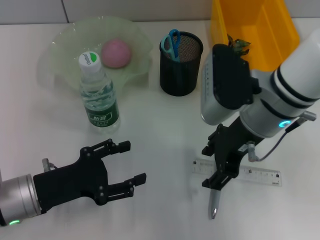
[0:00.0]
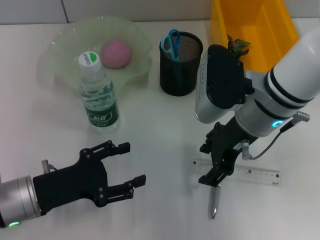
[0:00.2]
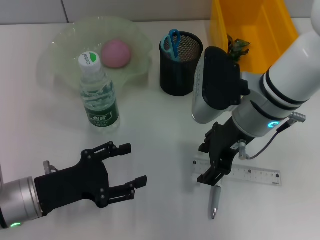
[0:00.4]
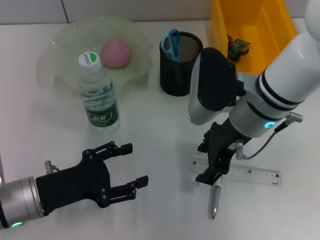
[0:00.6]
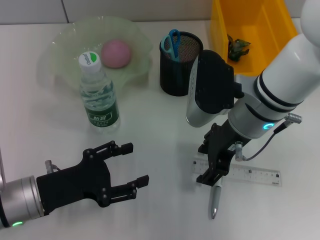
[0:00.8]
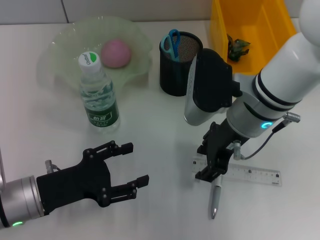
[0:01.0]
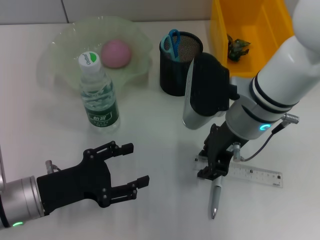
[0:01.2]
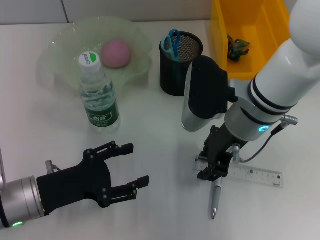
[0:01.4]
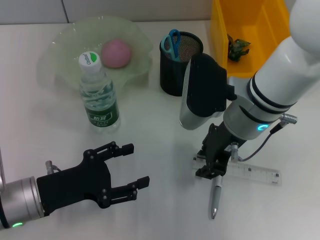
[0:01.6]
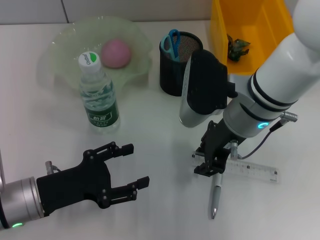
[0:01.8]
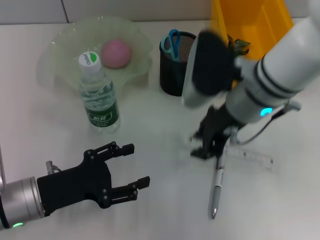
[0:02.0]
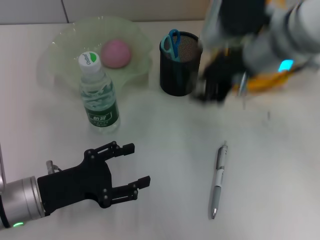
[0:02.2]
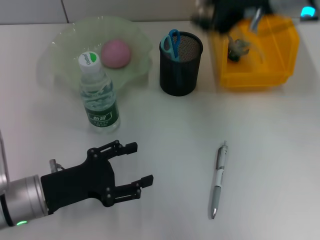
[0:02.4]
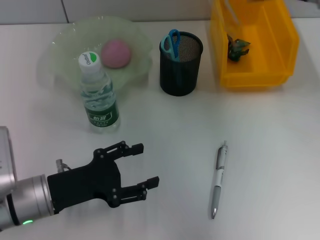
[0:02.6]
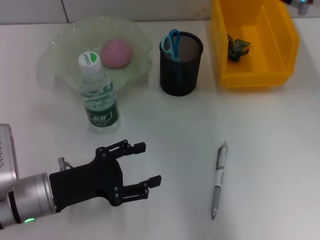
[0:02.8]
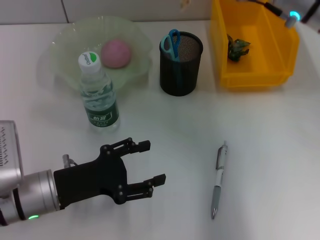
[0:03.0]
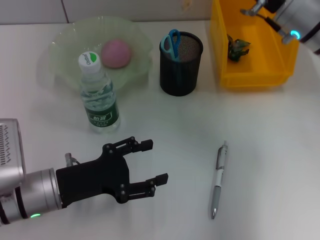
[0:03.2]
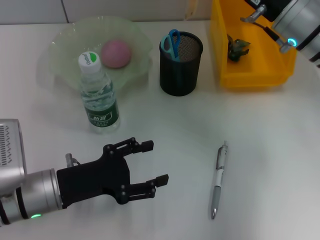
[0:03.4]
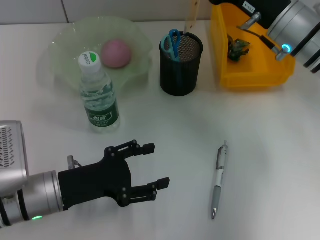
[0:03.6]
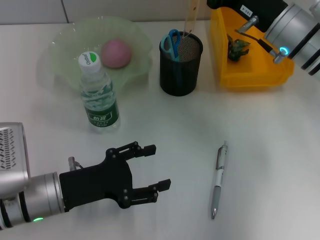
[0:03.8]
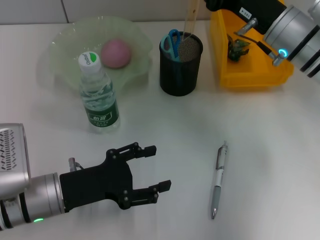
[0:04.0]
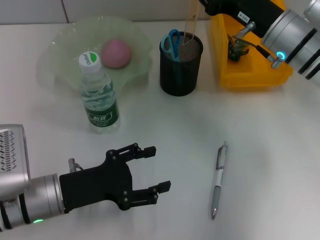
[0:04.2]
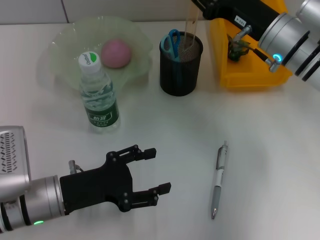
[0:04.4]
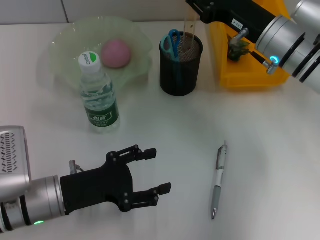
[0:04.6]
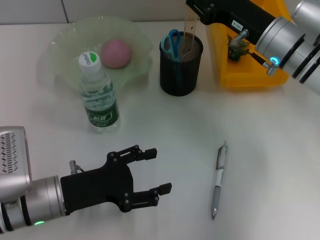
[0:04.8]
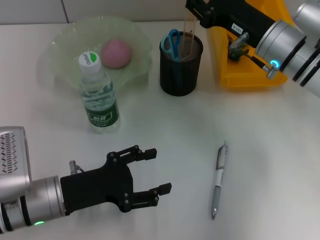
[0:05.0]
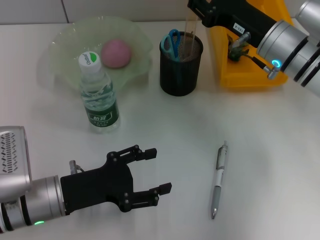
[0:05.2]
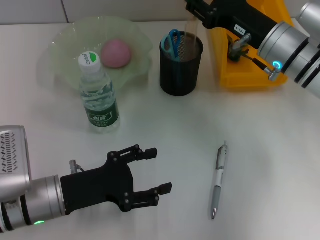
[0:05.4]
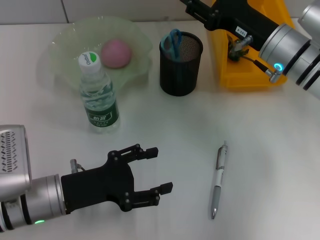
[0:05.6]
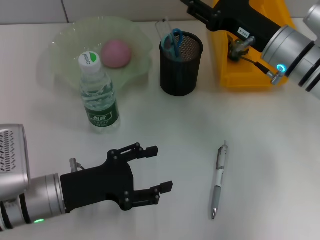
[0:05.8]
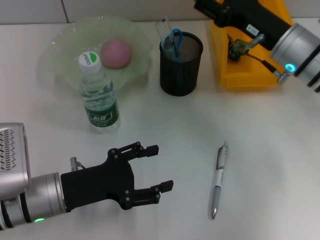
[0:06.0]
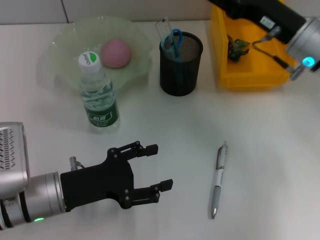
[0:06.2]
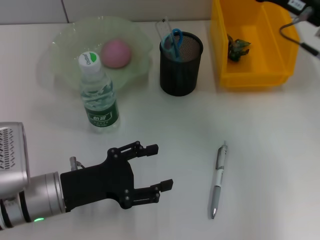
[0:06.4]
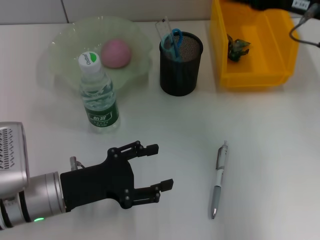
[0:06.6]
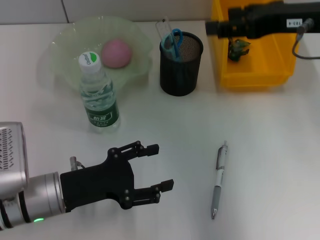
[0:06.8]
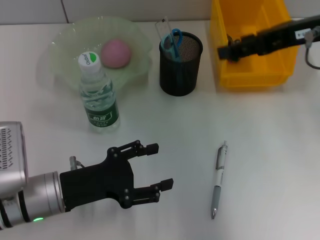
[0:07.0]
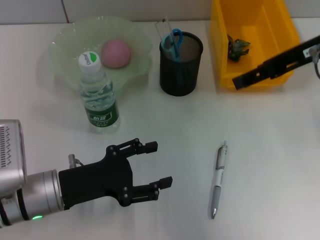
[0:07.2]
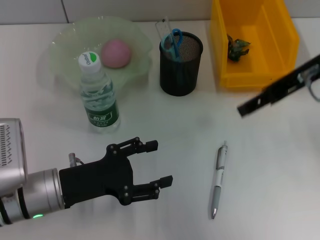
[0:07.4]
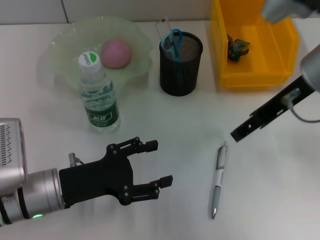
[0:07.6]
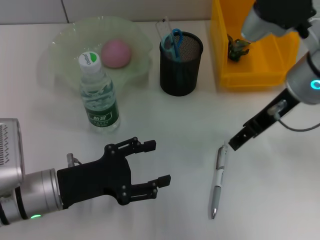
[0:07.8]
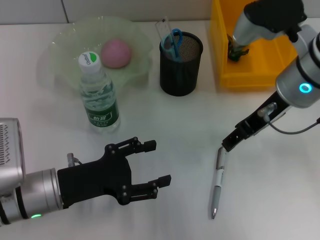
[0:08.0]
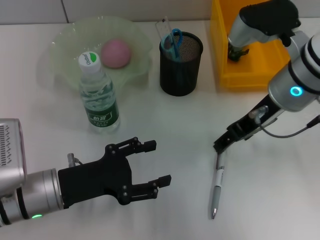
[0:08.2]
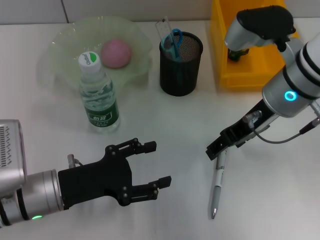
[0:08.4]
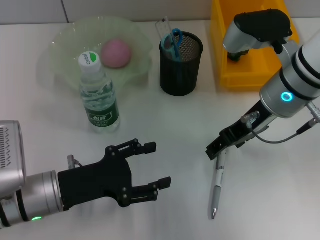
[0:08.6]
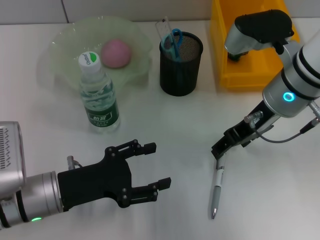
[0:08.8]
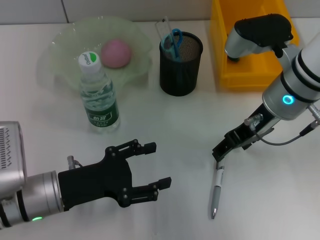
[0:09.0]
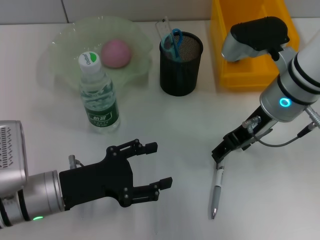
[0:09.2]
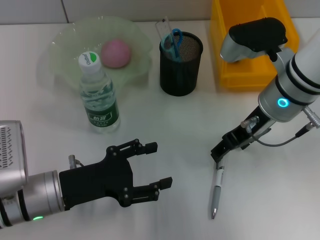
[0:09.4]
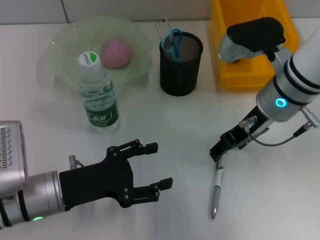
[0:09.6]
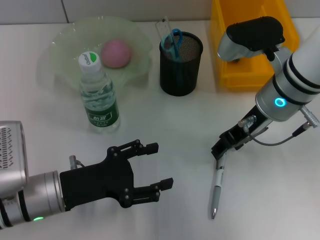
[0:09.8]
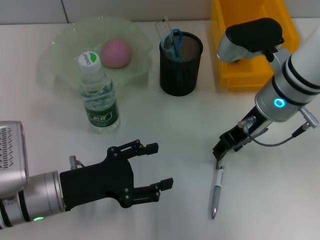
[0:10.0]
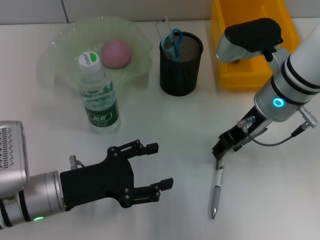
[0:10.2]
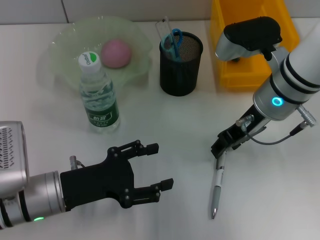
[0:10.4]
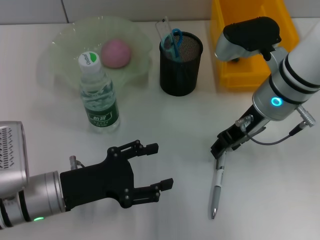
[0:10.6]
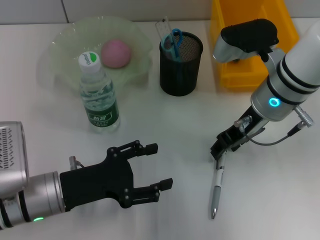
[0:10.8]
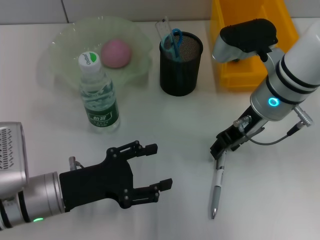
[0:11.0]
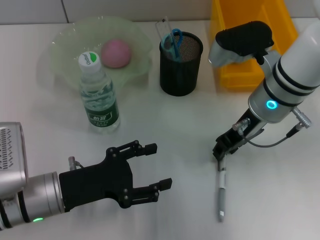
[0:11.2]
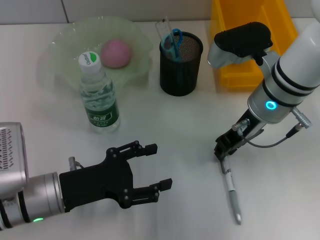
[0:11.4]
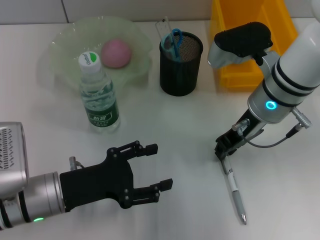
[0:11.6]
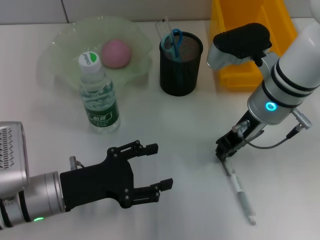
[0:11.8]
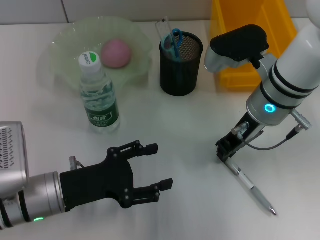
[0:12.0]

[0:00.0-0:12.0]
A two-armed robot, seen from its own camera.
Step, 0:01.8 to 0:05.4: Place the ruler into the pen holder with the right hand.
0:00.0 to 0:01.6: The right gripper closes up.
0:01.6 to 0:03.0: The right gripper moves to the right, upward and forward, some 10 cm.
0:03.0 to 0:04.4: The right gripper travels downward by approximately 10 cm.
0:04.4 to 0:06.0: The right gripper opens.
0:06.0 to 0:07.6: The right gripper travels upward by about 10 cm.
0:07.6 to 0:09.0: The right gripper shifts some 5 cm downward.
0:09.0 to 0:10.4: The right gripper closes its fingers.
0:10.4 to 0:12.0: The right gripper closes its fingers.

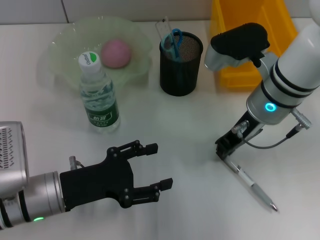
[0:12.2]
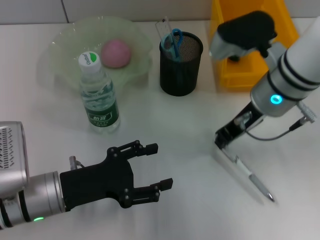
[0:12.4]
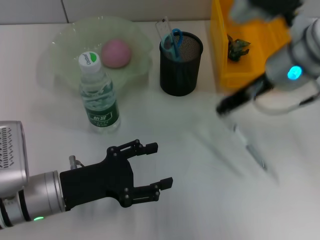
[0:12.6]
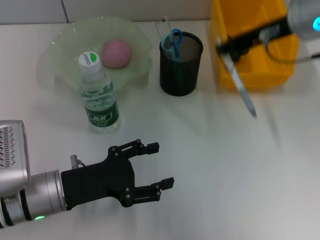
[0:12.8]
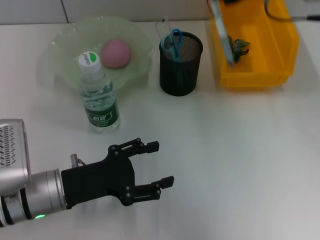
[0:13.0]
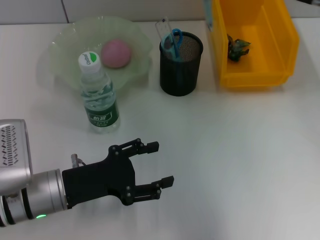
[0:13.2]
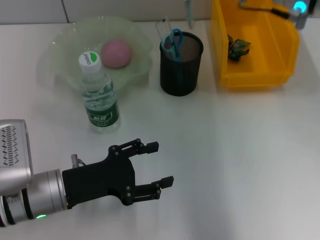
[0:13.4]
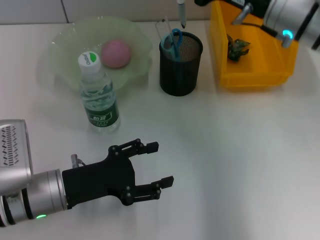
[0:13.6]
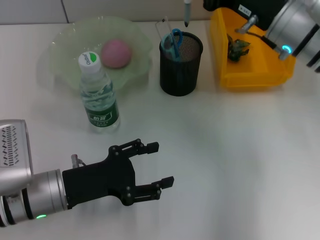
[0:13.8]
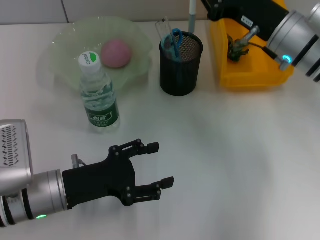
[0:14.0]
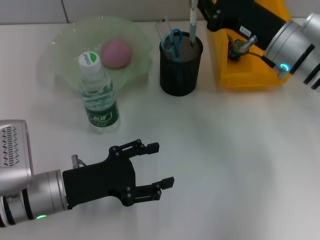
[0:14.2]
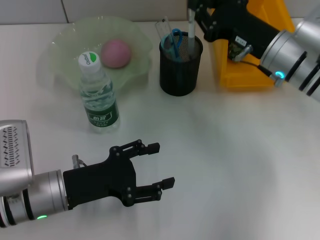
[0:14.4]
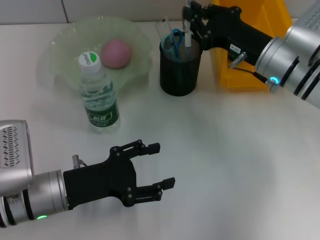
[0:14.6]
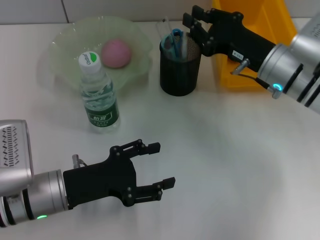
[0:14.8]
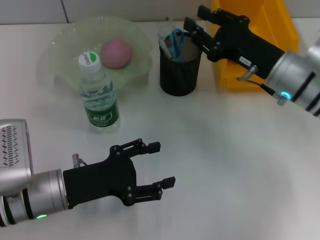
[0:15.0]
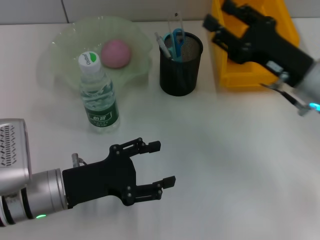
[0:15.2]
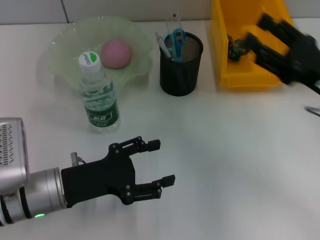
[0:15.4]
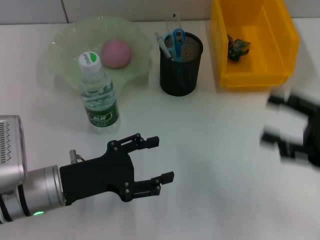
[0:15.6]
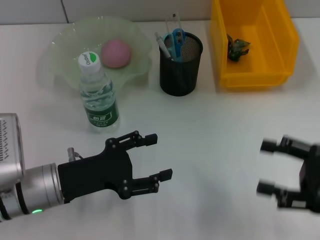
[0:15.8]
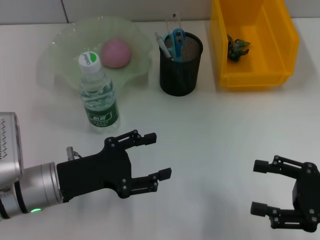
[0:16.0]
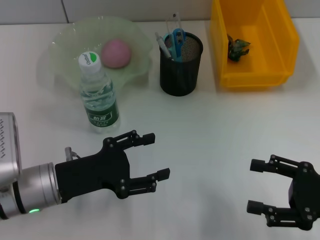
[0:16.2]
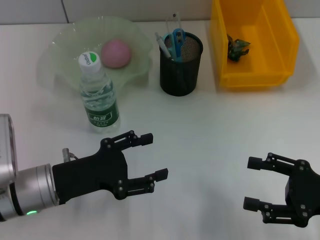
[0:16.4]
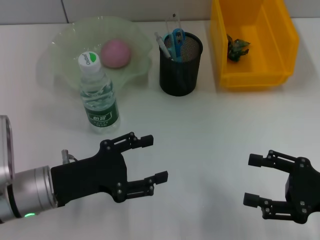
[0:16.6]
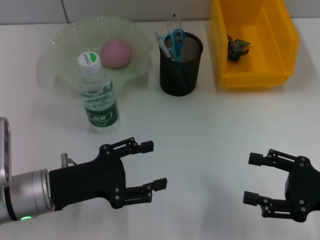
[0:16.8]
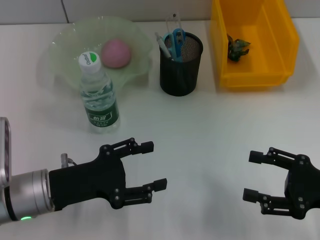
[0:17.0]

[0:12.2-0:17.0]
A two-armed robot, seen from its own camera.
Step, 0:12.4 to 0:14.8: Place the gray spring-action pen into the pen holder with the right hand.
0:12.2 to 0:13.8: The right gripper travels upward and back again, some 15 cm each way.
0:13.8 to 0:15.4: The right gripper heads backward and to the right, covering about 15 cm, and opens up.
0:15.4 to 0:17.0: The right gripper is displaced backward and downward by approximately 10 cm.
